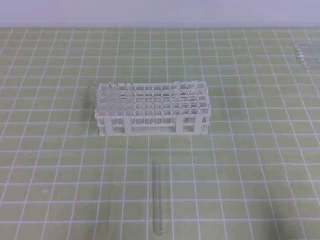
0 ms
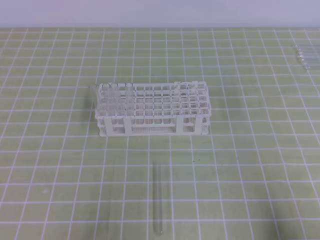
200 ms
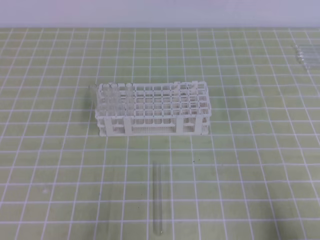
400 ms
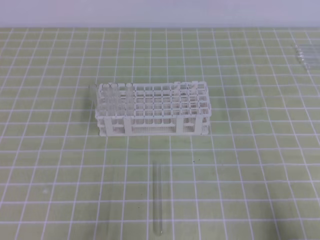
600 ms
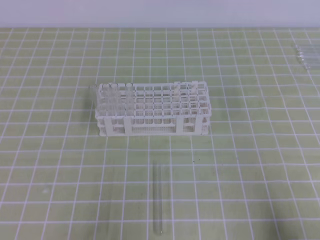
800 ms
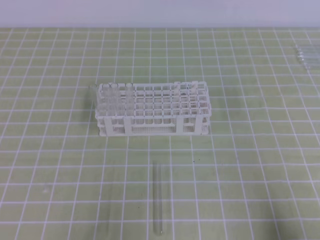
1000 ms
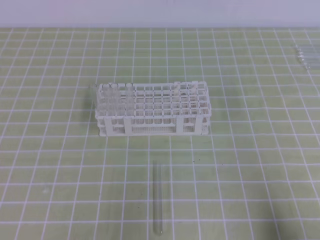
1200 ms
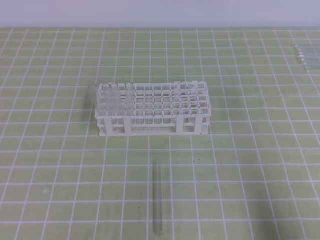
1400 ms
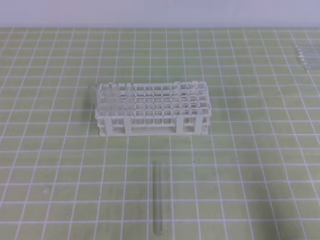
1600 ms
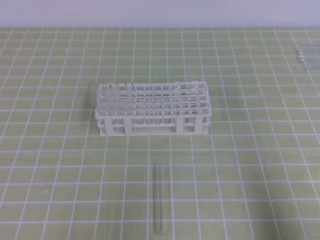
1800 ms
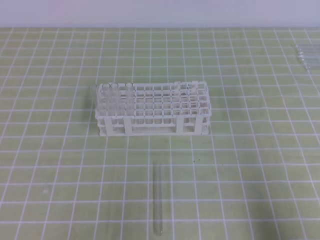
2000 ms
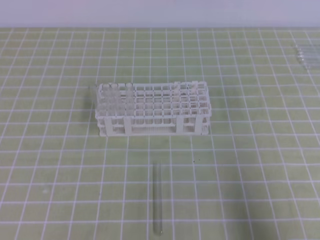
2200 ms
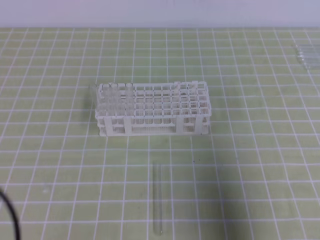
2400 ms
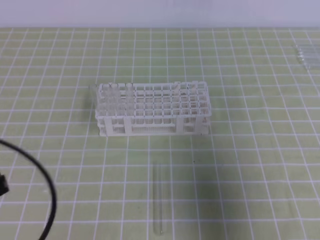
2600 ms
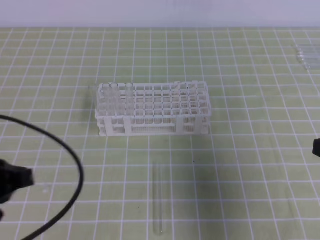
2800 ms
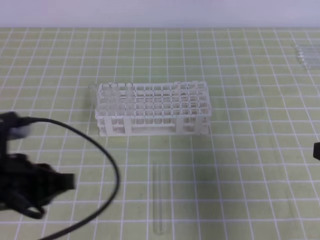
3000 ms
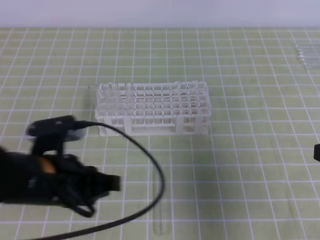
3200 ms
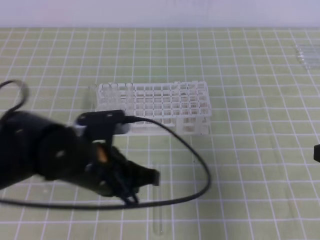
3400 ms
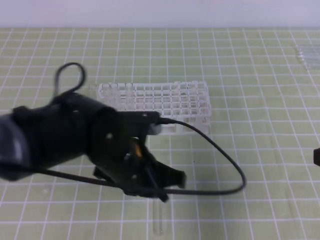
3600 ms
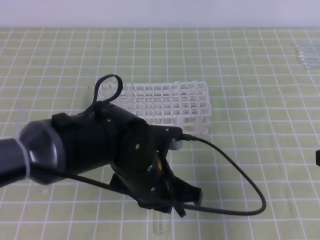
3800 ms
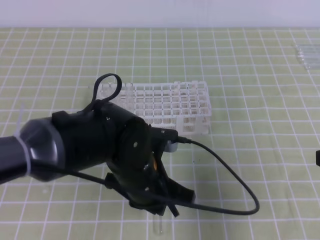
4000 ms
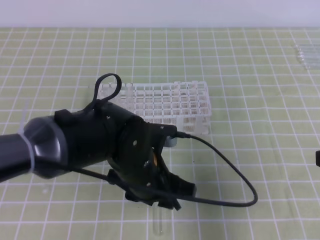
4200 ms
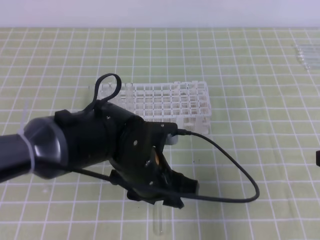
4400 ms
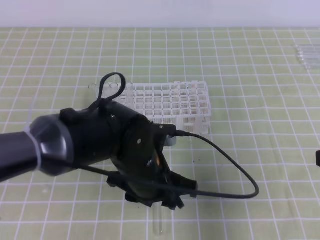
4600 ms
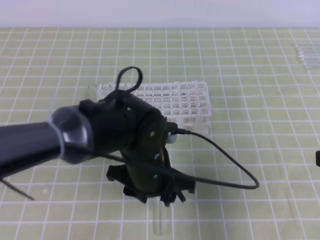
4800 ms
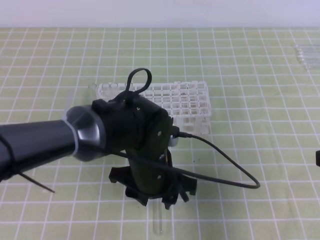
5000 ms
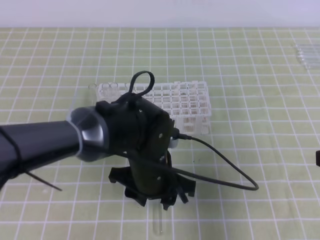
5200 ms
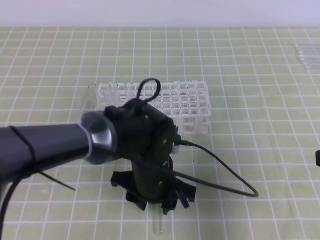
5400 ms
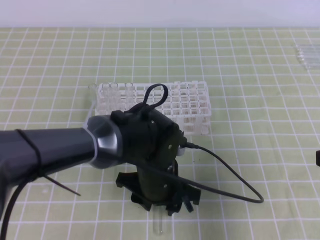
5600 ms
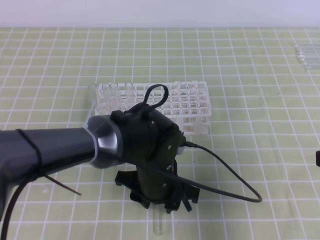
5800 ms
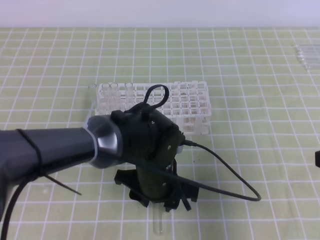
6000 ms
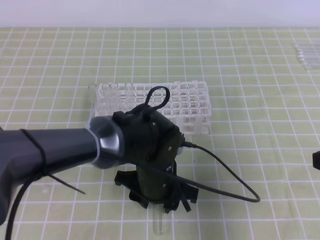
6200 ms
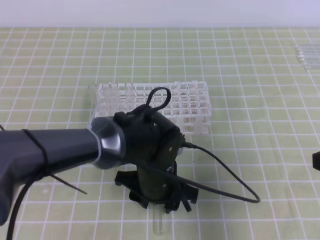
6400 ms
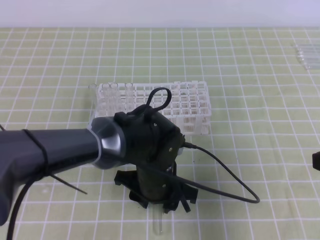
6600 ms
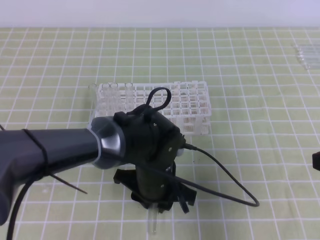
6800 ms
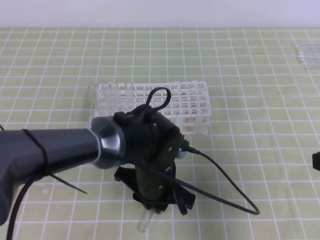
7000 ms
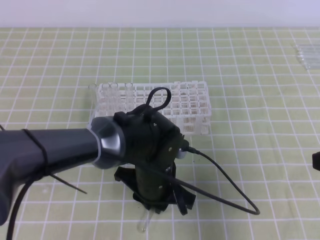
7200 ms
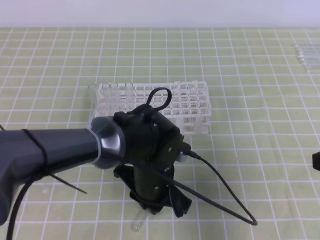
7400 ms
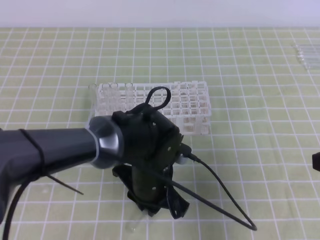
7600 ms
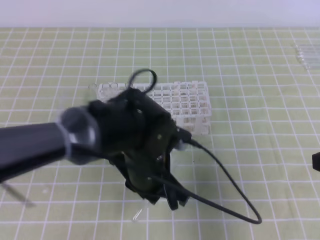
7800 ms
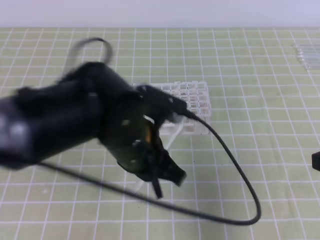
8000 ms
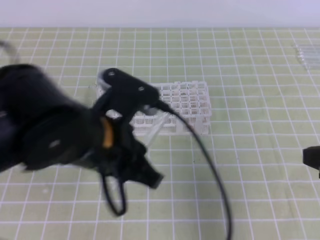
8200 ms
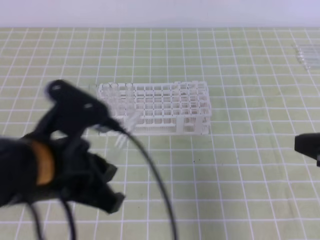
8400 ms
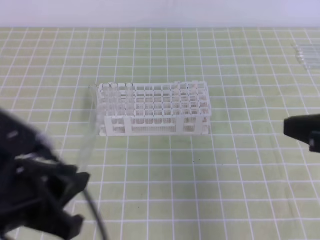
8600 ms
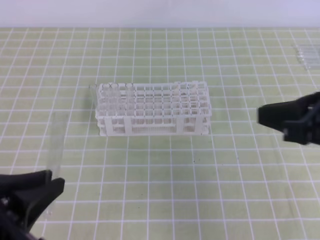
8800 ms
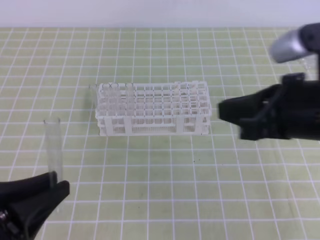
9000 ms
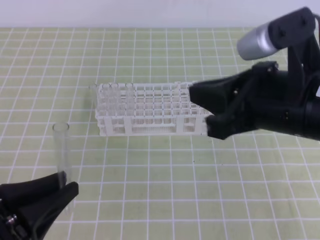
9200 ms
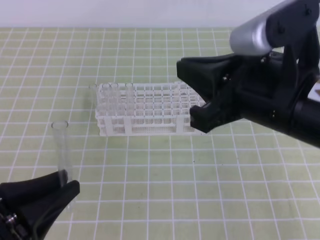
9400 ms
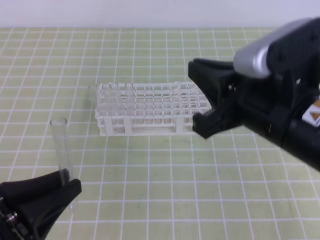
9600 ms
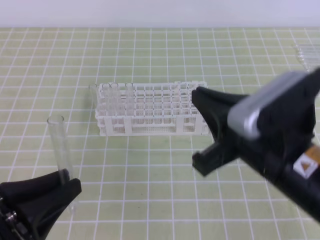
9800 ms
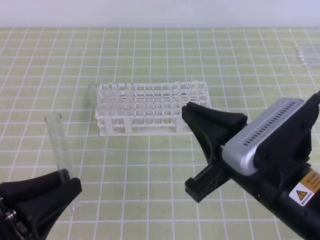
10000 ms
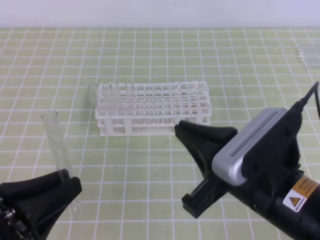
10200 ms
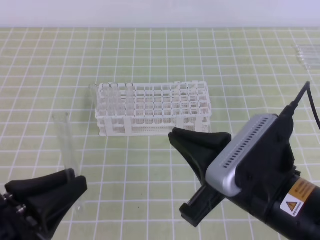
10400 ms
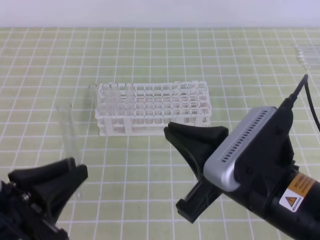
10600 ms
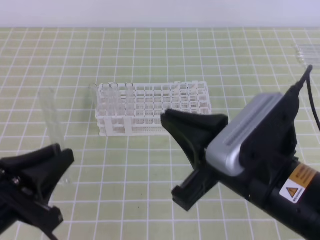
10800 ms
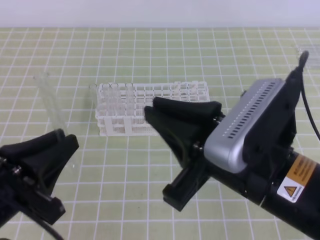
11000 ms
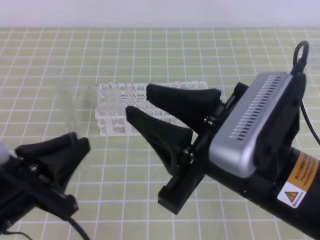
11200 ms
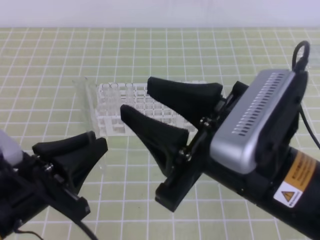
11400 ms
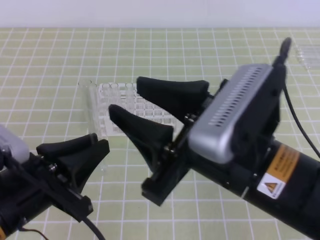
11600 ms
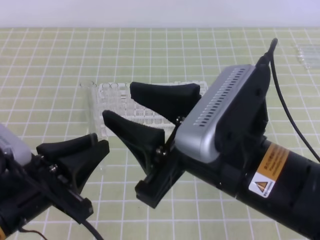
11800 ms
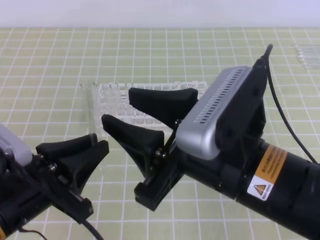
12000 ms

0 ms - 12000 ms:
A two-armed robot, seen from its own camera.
1600 ms - 3000 ms: The left gripper heads forward, to the right and upward, covering some 15 cm; the right gripper shifts approximately 15 cm forward and upward.
3000 ms - 4400 ms: The left gripper travels to the right by some 15 cm, and opens.
4400 ms - 6000 ms: The left gripper ends up approximately 5 cm from where it was.
6000 ms - 7600 ms: The left gripper closes its fingers.
7600 ms - 9000 ms: The right gripper shifts roughly 10 cm to the left and upward, while the left gripper moves to the left, backward and upward, roughly 25 cm.
9000 ms - 10400 ms: The right gripper goes about 10 cm to the left, downward and backward.
10400 ms - 12000 ms: The left gripper changes place by about 5 cm. The right gripper travels upward by some 5 cm, and opens.

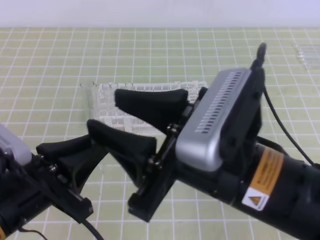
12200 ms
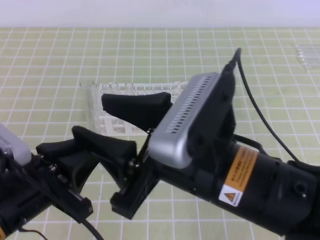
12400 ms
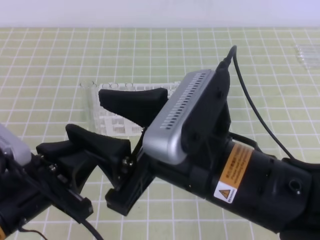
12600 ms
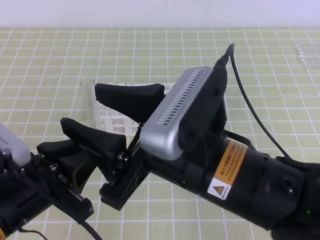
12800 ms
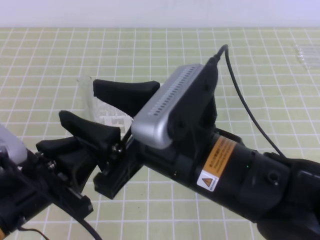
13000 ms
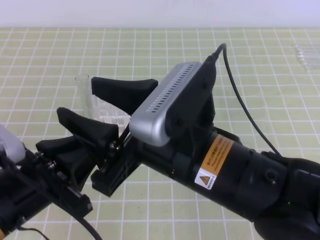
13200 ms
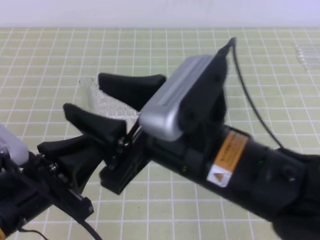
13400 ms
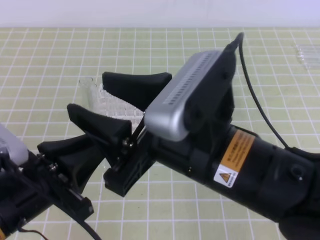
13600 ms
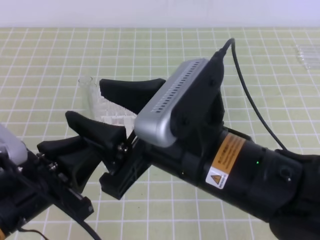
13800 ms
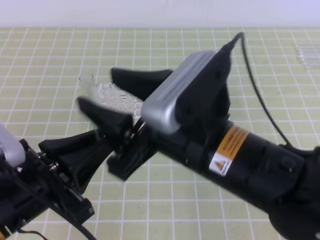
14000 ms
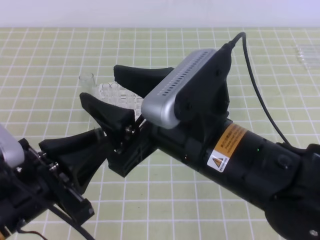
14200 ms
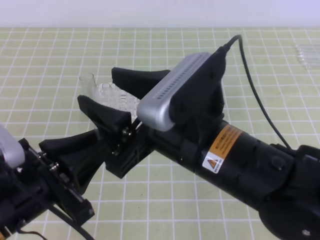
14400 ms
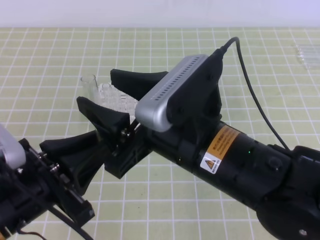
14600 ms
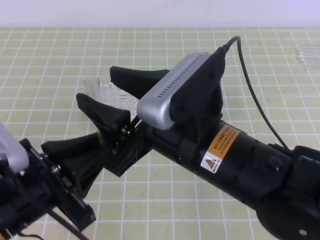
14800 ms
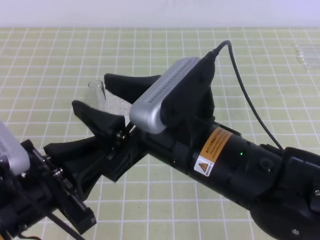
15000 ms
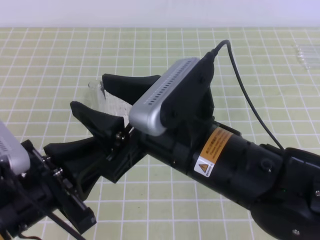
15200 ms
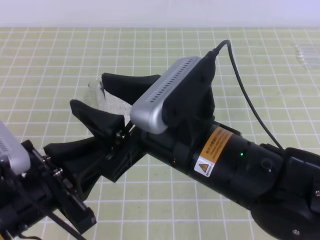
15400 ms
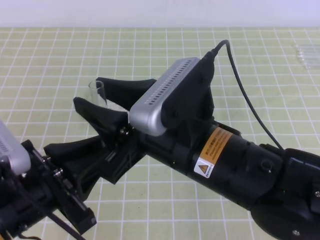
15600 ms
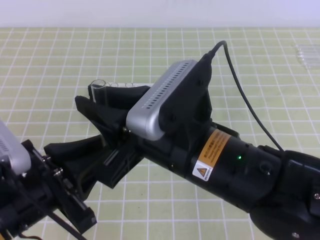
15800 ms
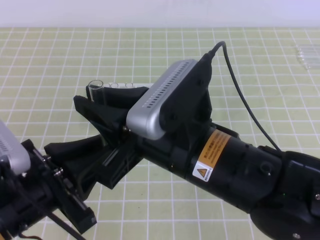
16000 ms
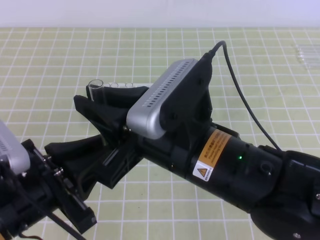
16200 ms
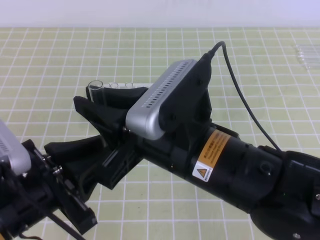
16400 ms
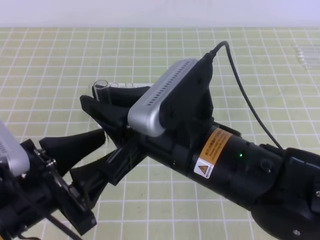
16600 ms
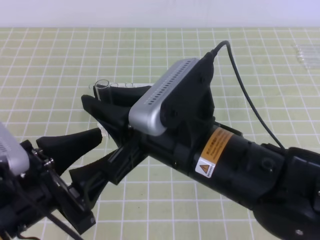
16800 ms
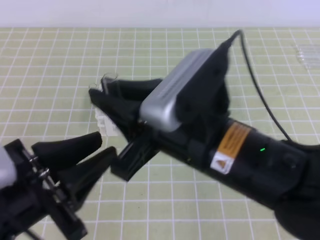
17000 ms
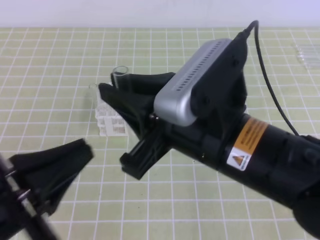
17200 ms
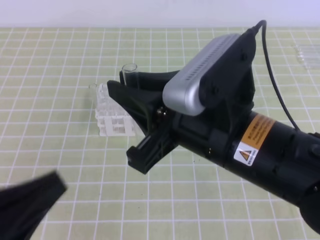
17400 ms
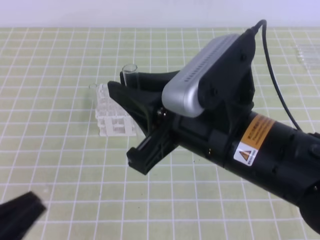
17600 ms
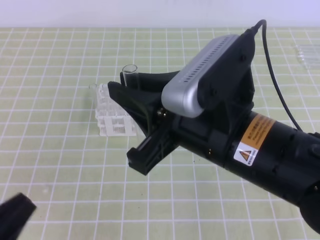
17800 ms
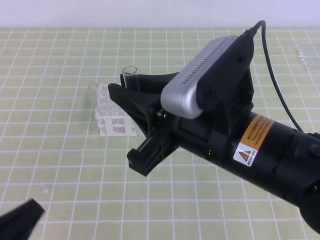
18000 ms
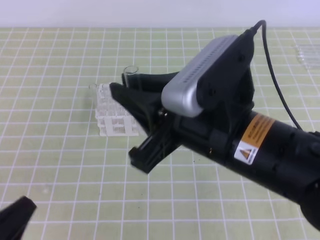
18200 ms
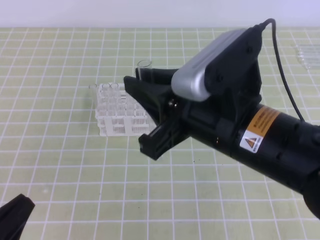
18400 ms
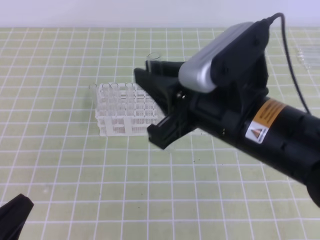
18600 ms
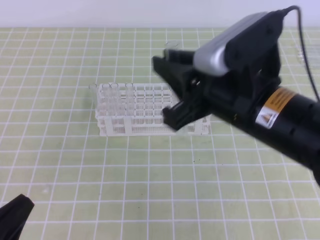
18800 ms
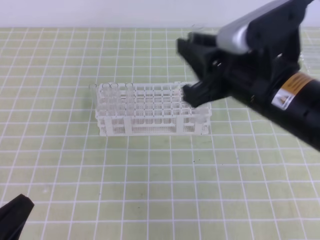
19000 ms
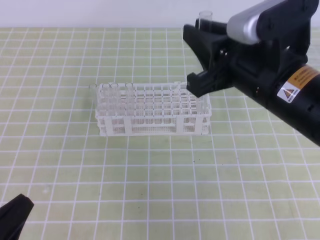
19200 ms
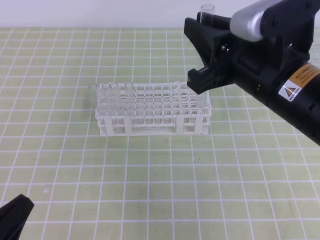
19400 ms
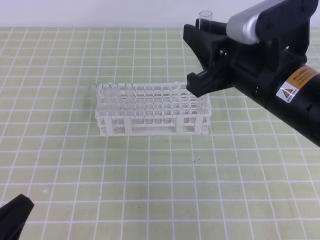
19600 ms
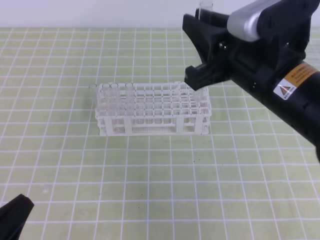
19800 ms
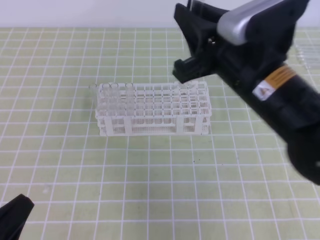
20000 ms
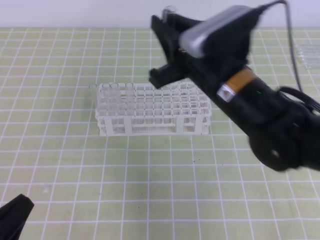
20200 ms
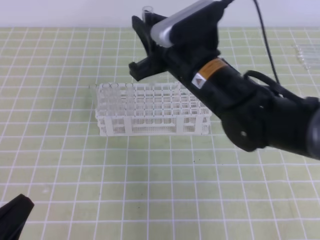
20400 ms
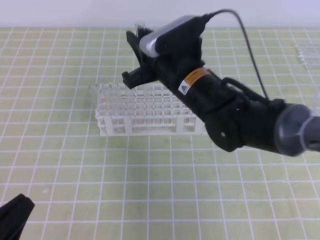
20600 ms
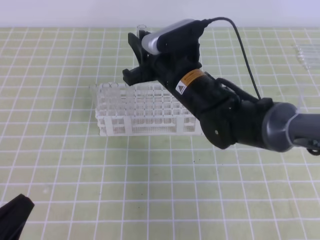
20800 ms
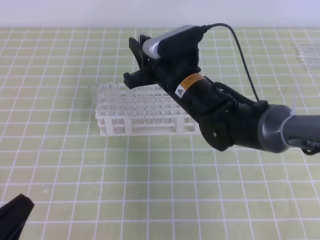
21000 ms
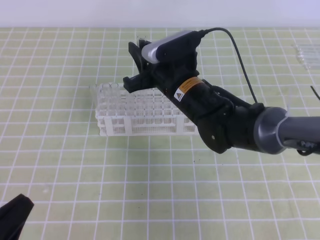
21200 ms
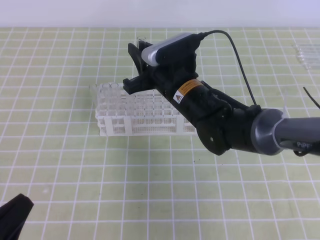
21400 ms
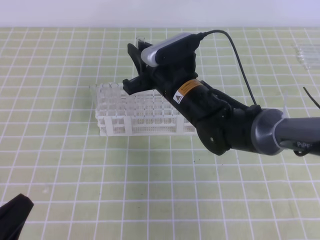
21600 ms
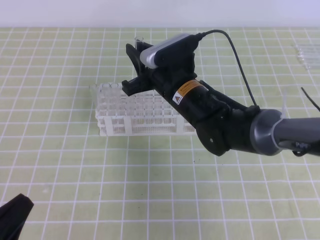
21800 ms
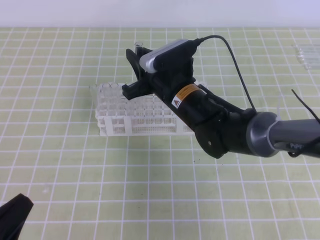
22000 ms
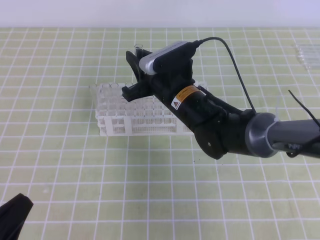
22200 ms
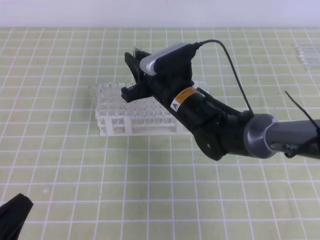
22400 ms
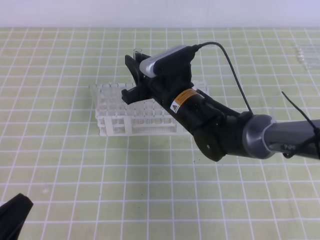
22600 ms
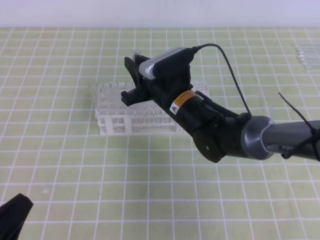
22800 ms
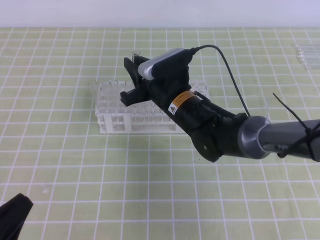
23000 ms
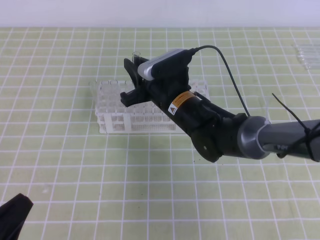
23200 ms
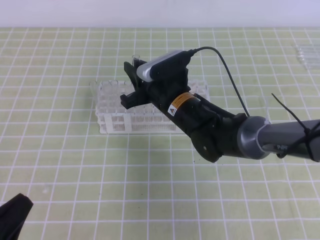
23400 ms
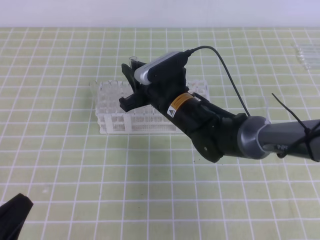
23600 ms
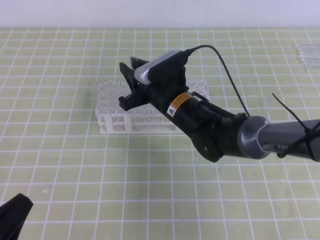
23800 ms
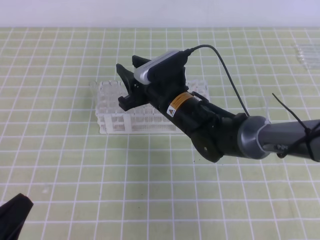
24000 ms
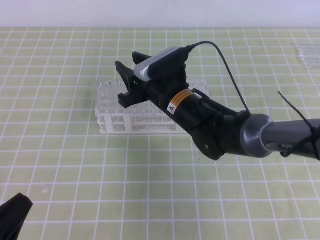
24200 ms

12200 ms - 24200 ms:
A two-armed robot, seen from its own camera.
13800 ms - 15200 ms: The grippers stay close to where they were, moving slightly.
15200 ms - 16600 ms: The right gripper closes its fingers; the left gripper opens up.
16600 ms - 18200 ms: The left gripper travels to the left, backward and downward by about 10 cm, and closes up.
18200 ms - 19800 ms: The right gripper shifts some 5 cm forward.
19800 ms - 21200 ms: The right gripper goes roughly 20 cm forward, downward and to the left.
21200 ms - 22600 ms: There are only small adjustments of the grippers.
22600 ms - 24200 ms: The right gripper opens.
